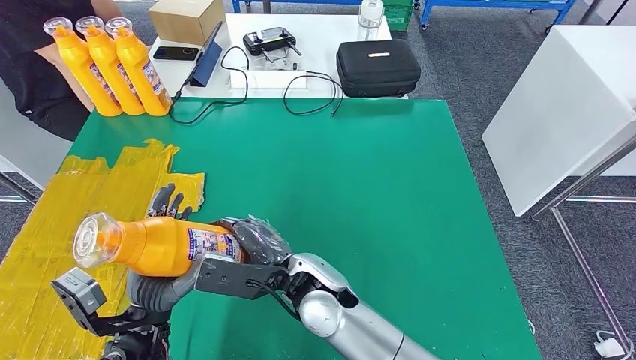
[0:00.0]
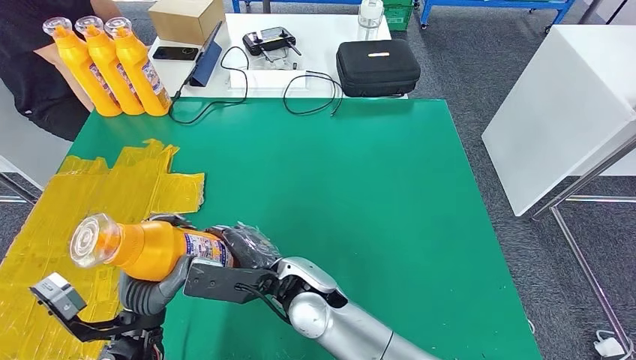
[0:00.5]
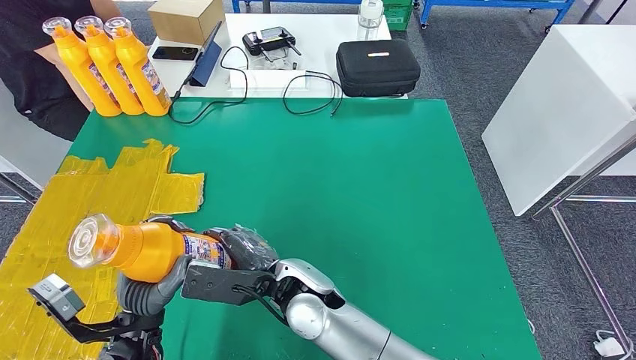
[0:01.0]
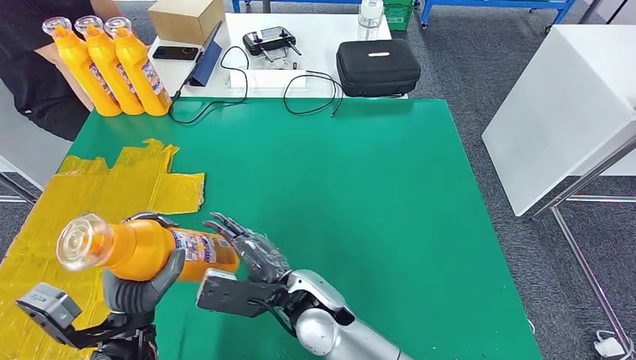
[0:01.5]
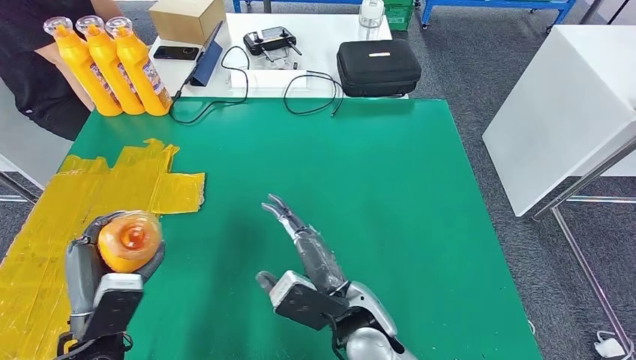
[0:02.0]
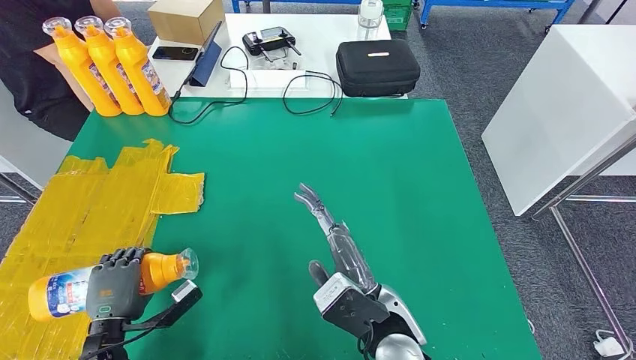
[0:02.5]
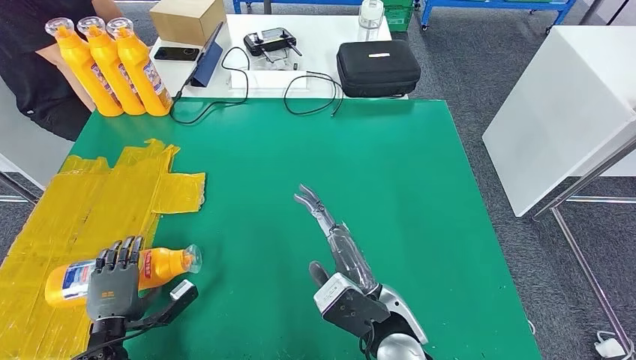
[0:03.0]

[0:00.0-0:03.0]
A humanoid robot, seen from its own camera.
Step, 0:00.0 to 0:03.0: Flip the fast-moving consumer goods bottle to the front side.
0:00.0 to 0:01.5: The hands stay close to where they were, moving slightly.
0:01.5 to 0:03.0: The left hand heads downward and to the left, covering about 15 cm. The right hand travels to the right by approximately 10 cm.

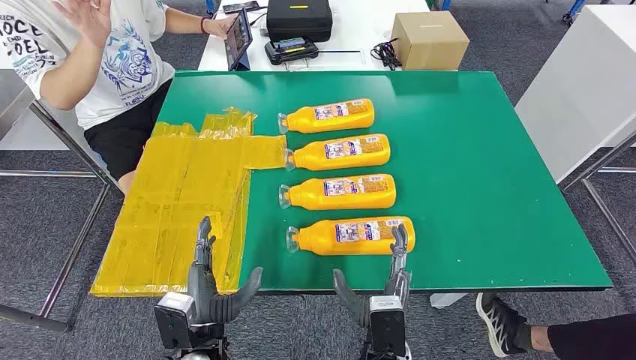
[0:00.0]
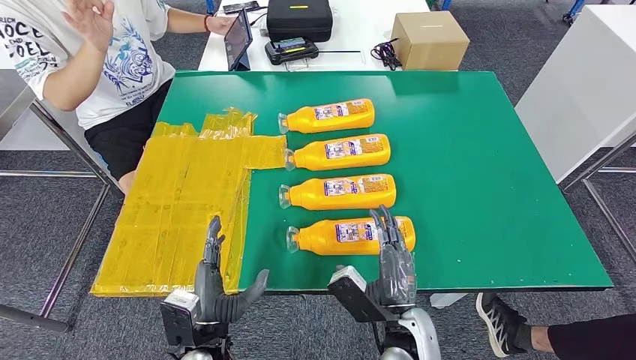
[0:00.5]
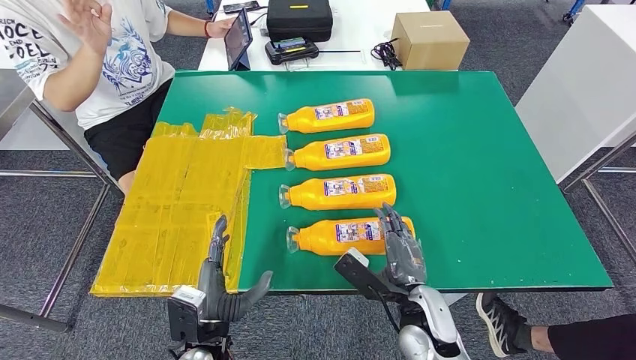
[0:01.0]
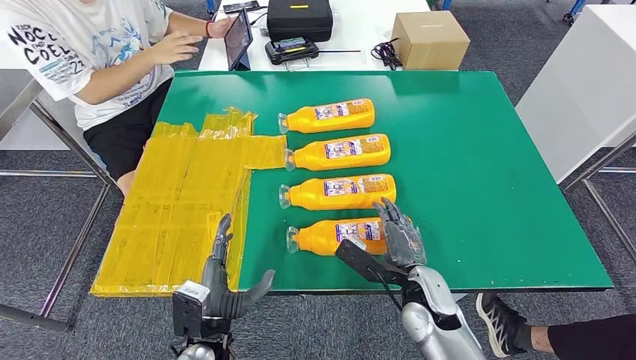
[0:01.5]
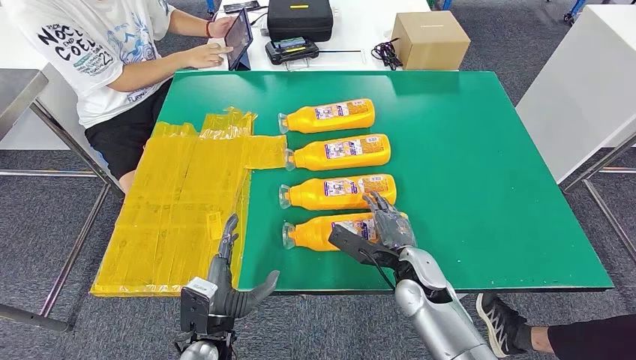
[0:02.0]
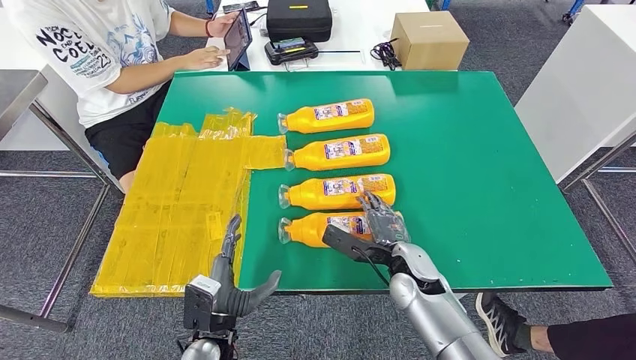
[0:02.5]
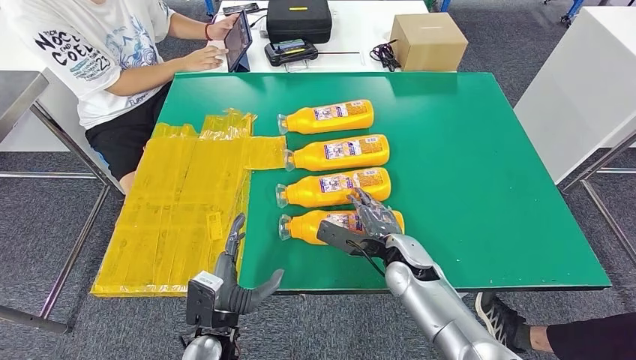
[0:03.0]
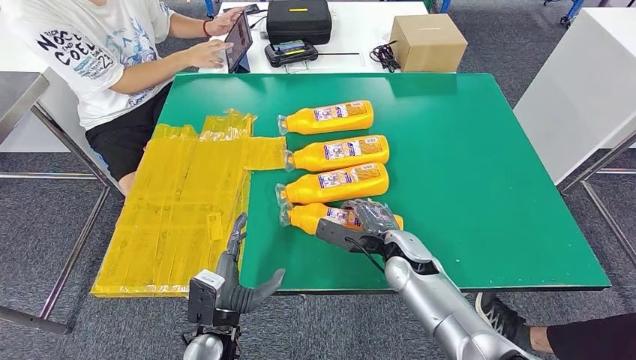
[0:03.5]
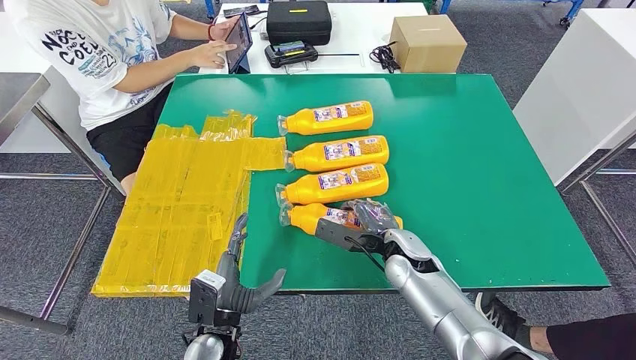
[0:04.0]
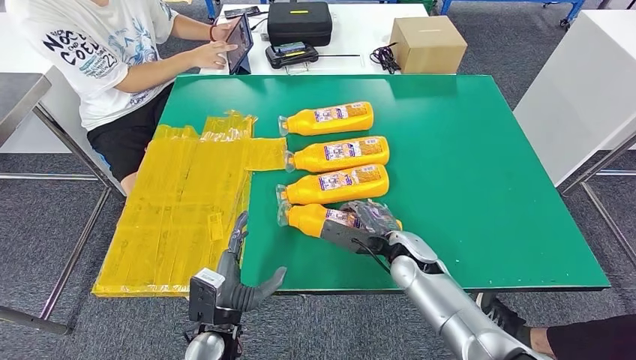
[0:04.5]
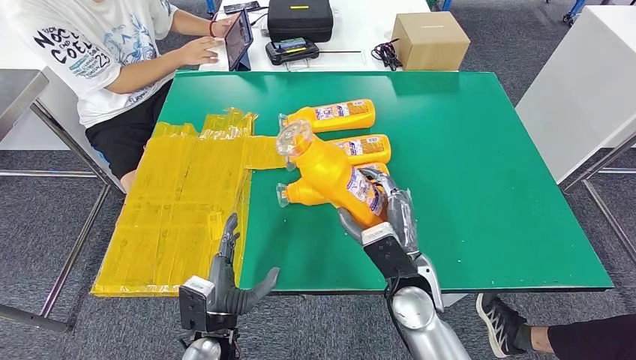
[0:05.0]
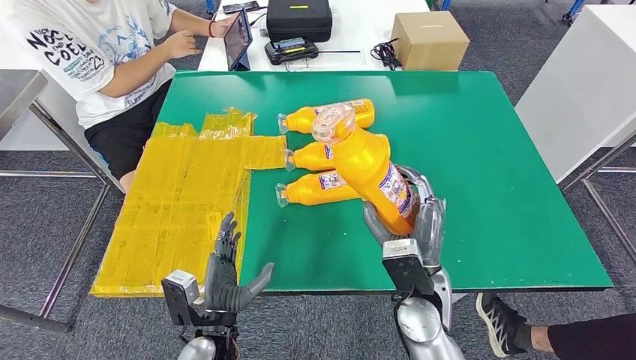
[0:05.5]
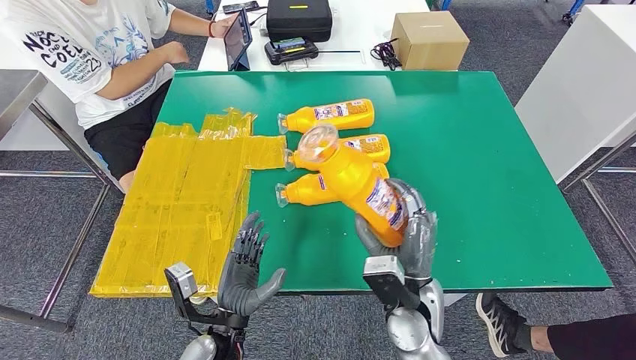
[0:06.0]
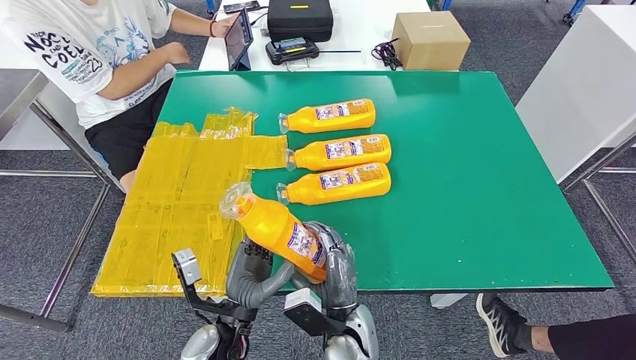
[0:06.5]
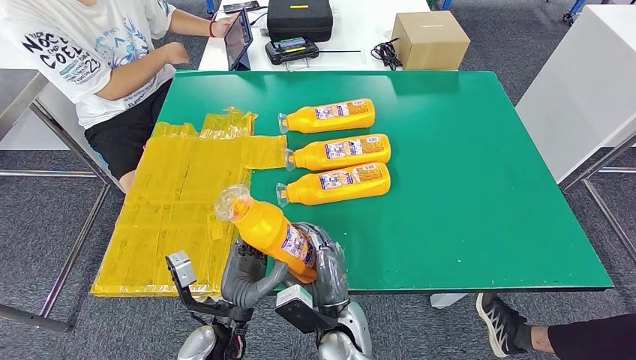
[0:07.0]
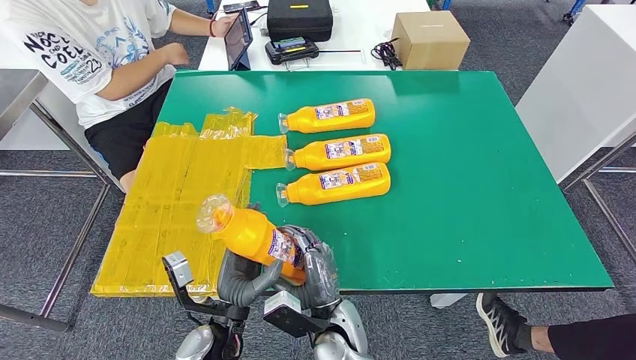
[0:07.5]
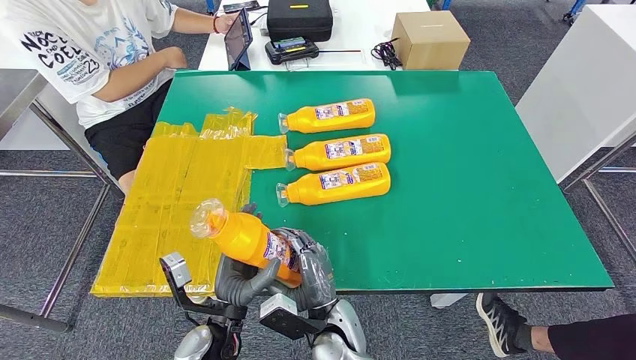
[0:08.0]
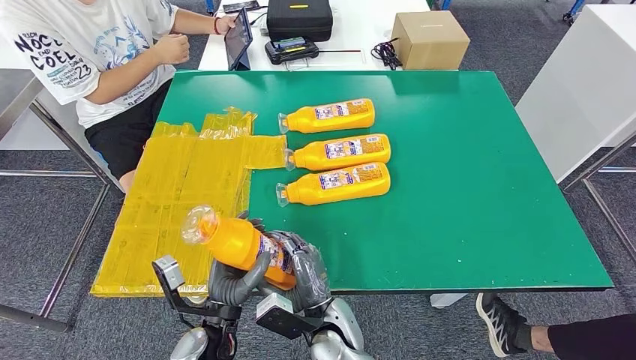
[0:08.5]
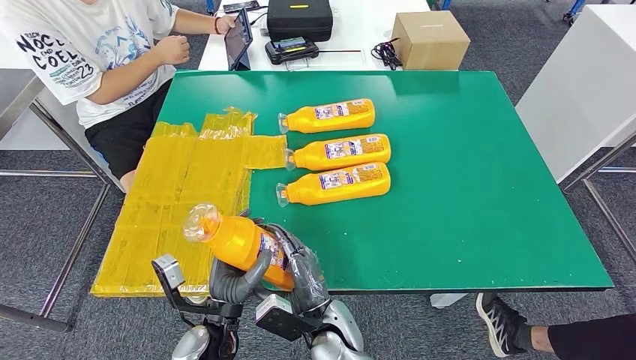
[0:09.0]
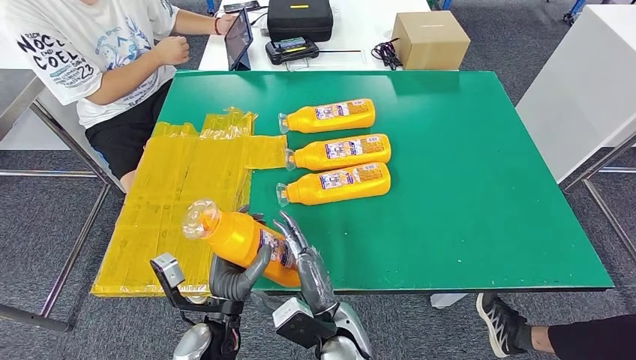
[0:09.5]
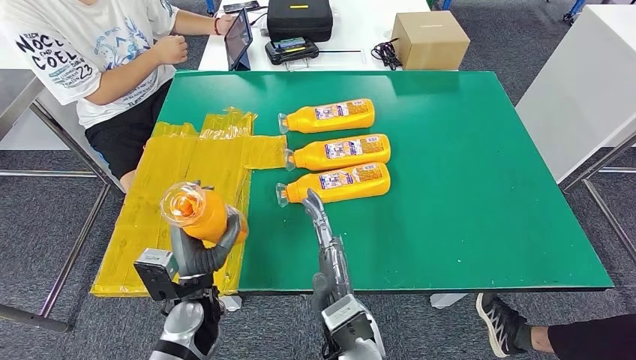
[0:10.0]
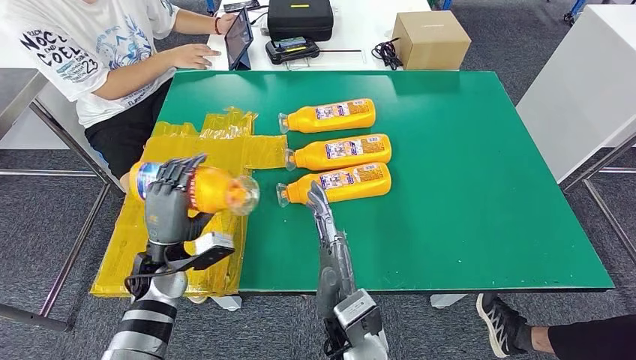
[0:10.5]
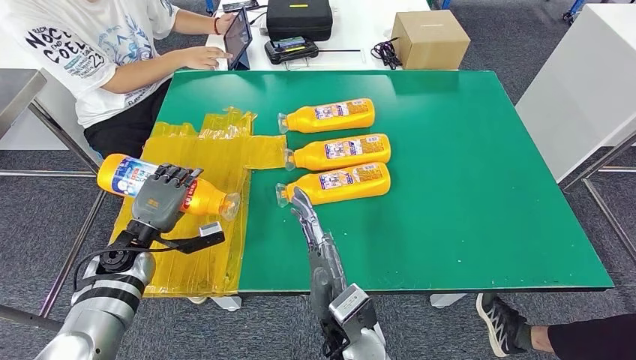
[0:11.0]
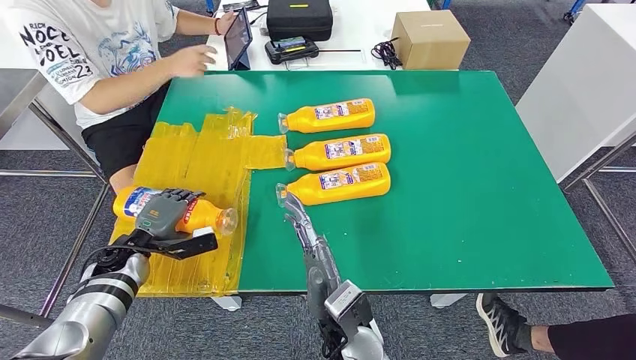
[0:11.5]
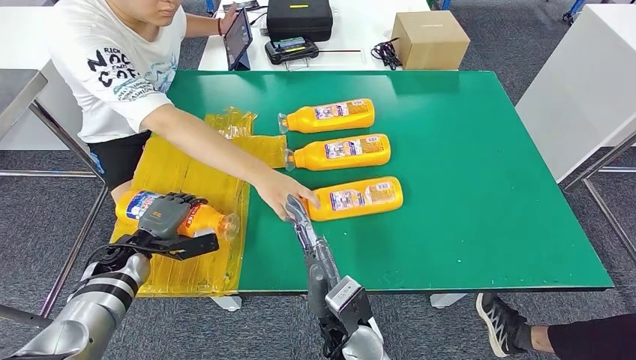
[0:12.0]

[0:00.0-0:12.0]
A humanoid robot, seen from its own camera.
Step, 0:00.0 to 0:05.0: Take the fast-moving consumer goods bottle from the table.
0:02.0 to 0:04.0: The hands move only a little.
0:06.0 to 0:08.0: The right hand moves to the left and downward, approximately 15 cm.
0:08.0 to 0:10.0: The right hand shifts roughly 5 cm upward. The left hand shifts by roughly 5 cm.

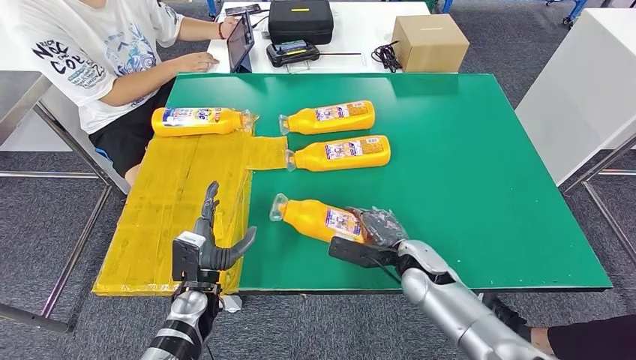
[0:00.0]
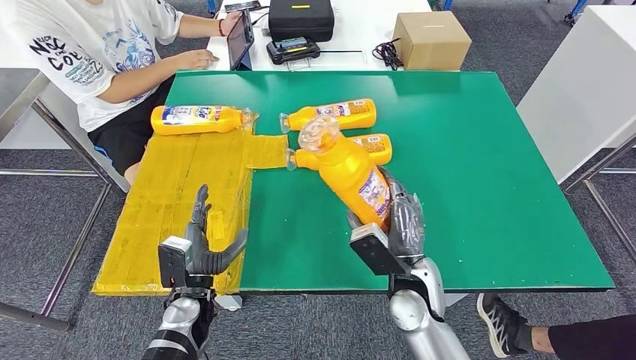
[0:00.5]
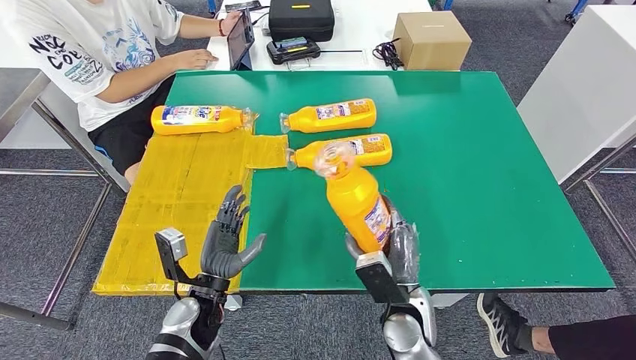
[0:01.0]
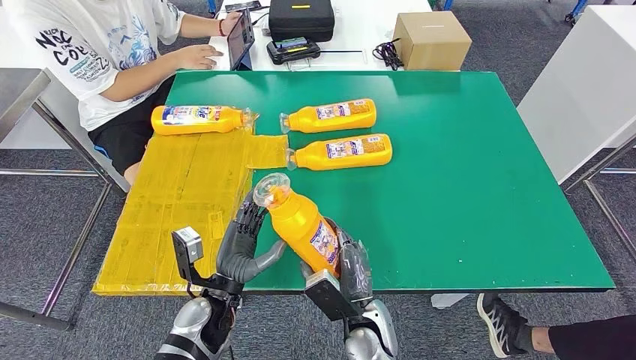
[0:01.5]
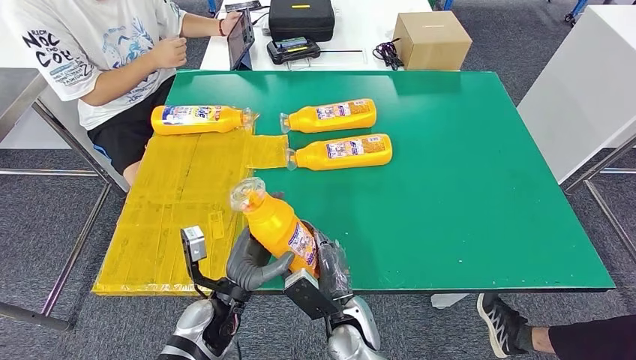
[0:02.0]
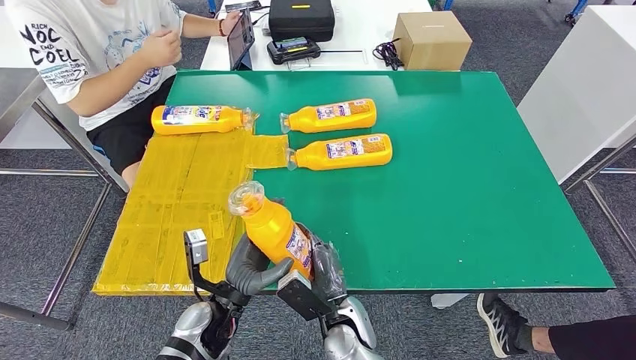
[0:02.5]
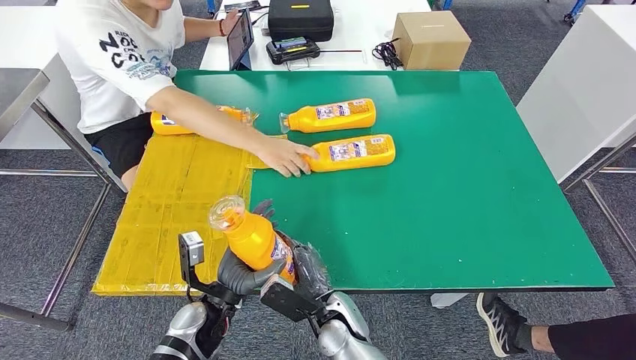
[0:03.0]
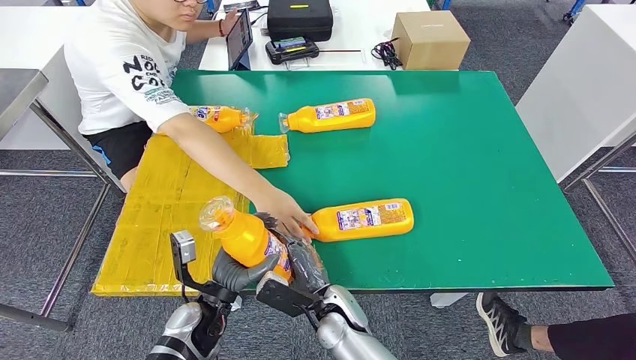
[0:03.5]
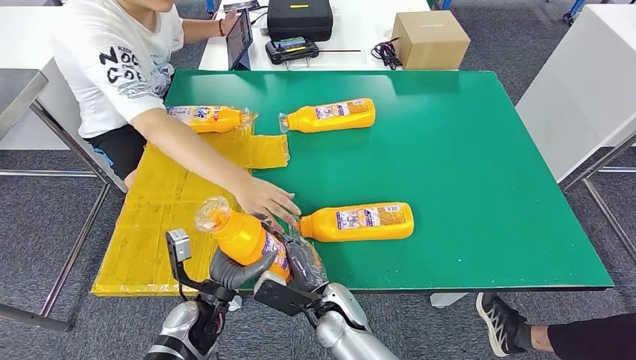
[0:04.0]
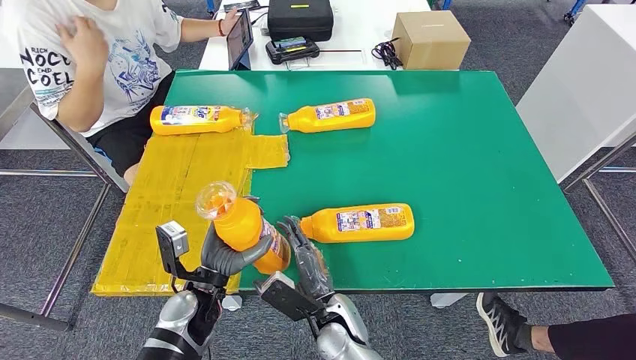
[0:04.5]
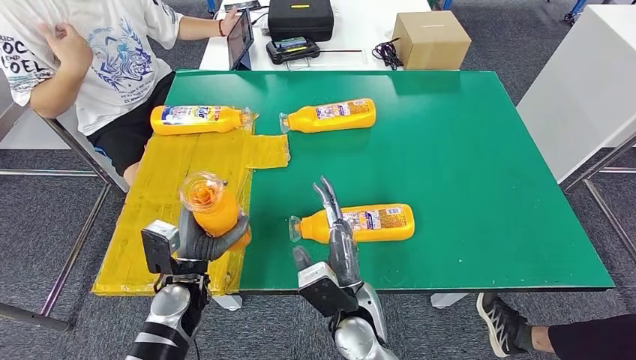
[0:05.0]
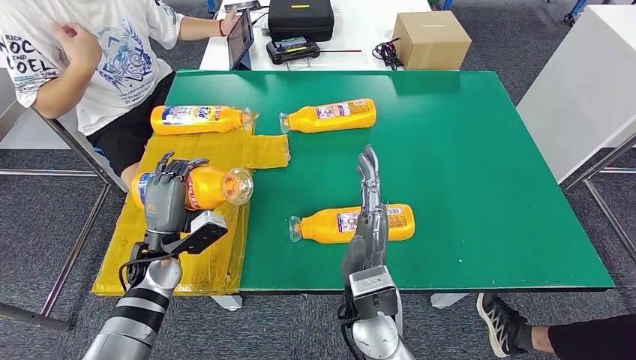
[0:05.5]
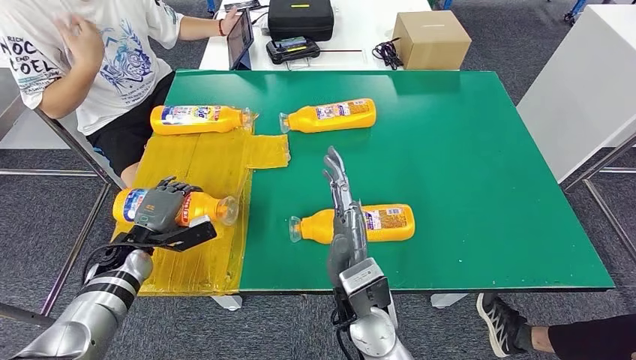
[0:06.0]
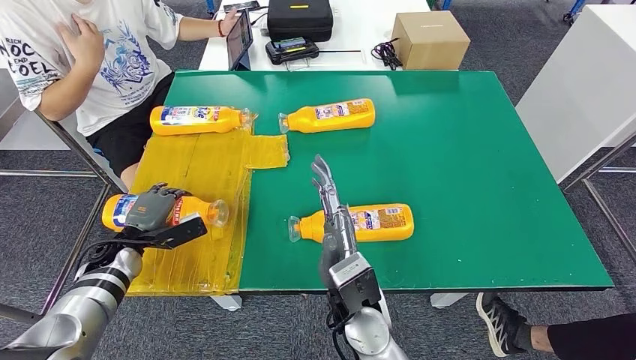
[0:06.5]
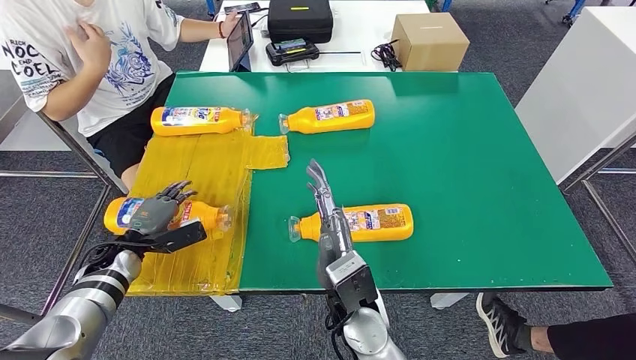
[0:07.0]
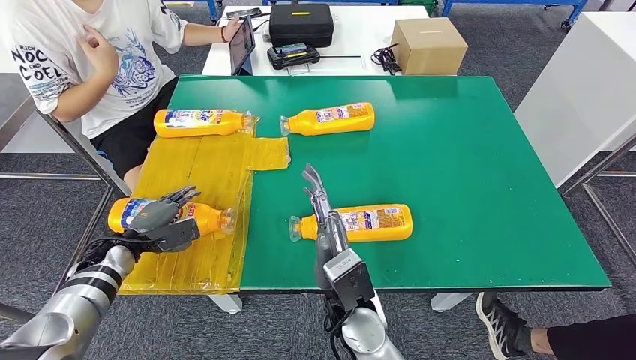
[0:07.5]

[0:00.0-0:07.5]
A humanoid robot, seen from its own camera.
Step, 0:02.0 to 0:05.5: Flip the fast-moving consumer goods bottle to the front side.
